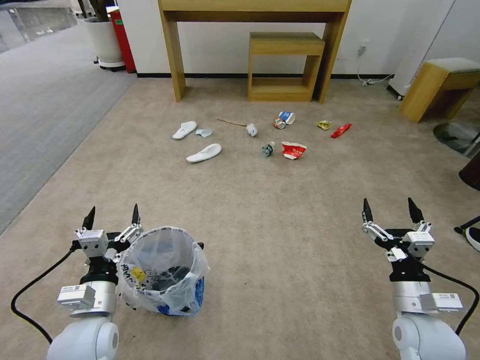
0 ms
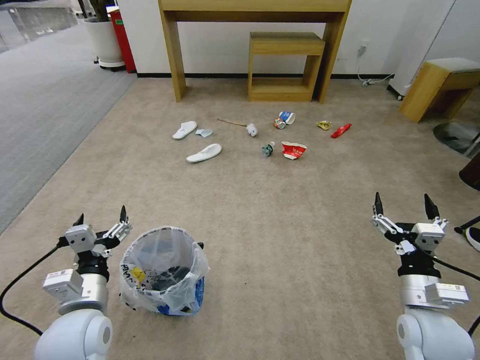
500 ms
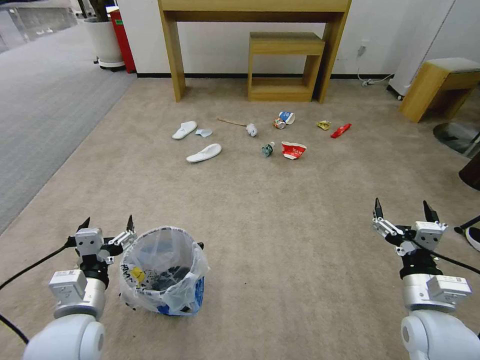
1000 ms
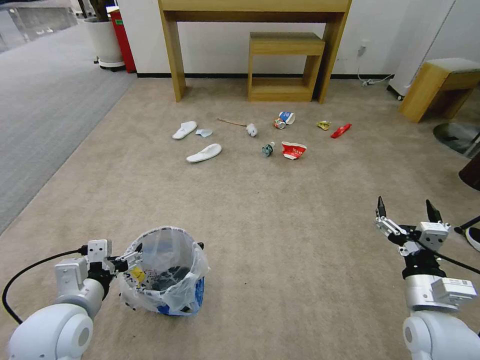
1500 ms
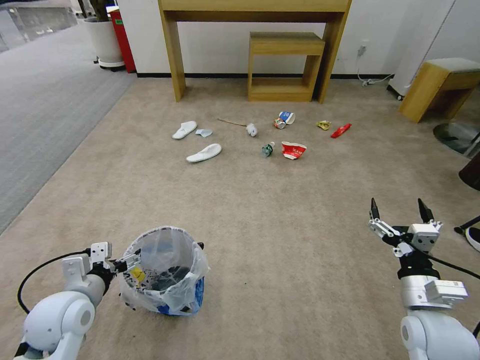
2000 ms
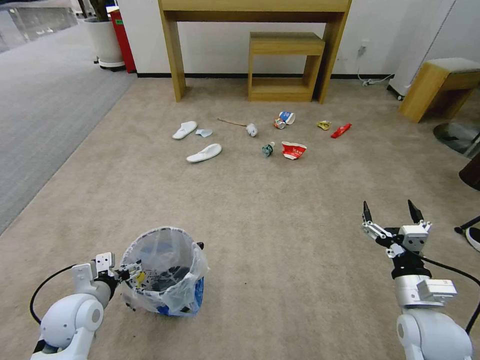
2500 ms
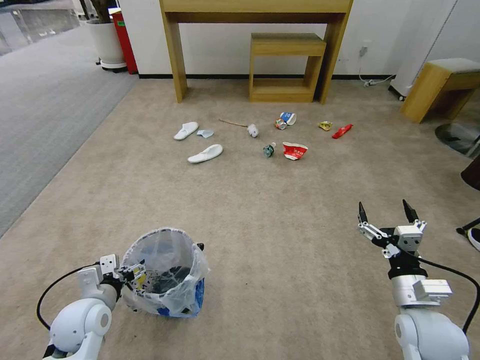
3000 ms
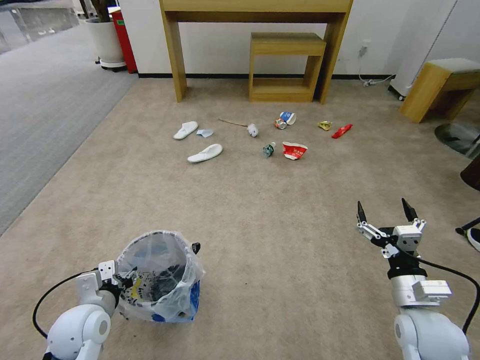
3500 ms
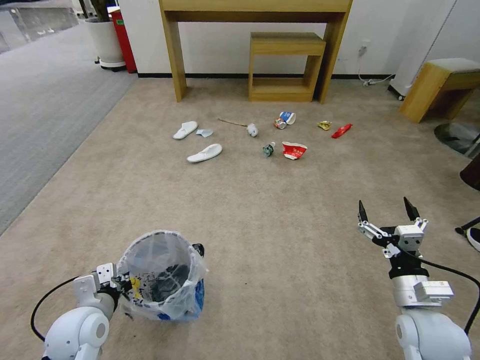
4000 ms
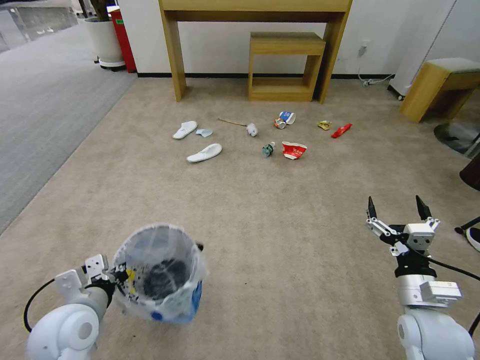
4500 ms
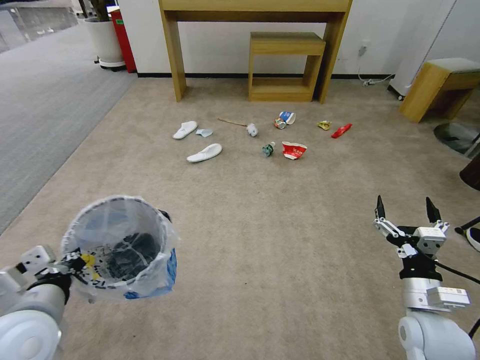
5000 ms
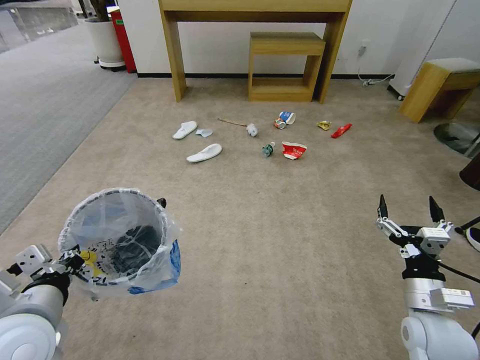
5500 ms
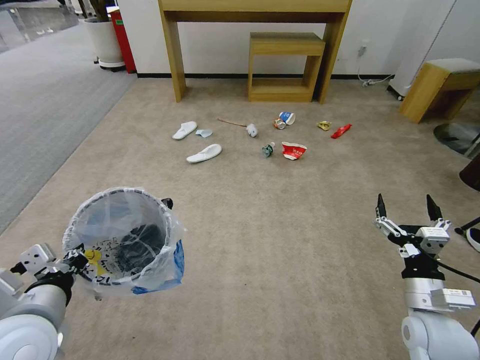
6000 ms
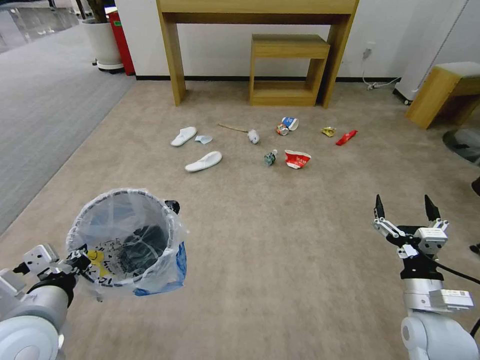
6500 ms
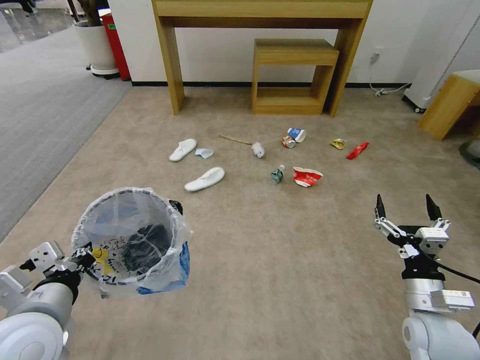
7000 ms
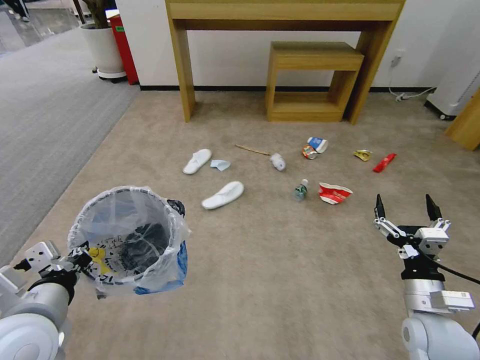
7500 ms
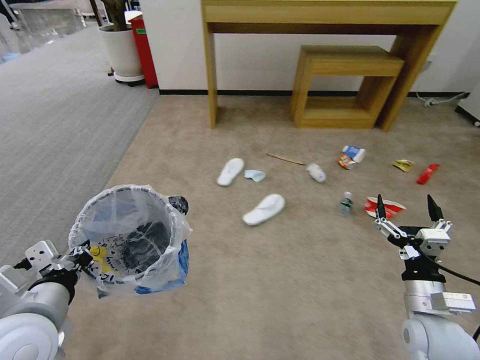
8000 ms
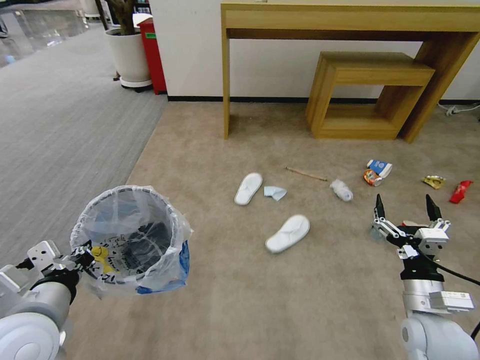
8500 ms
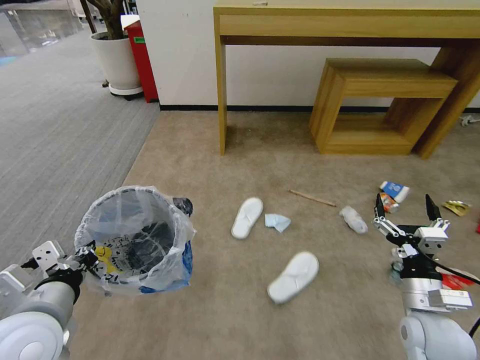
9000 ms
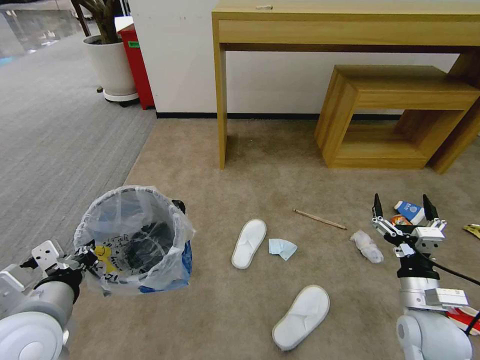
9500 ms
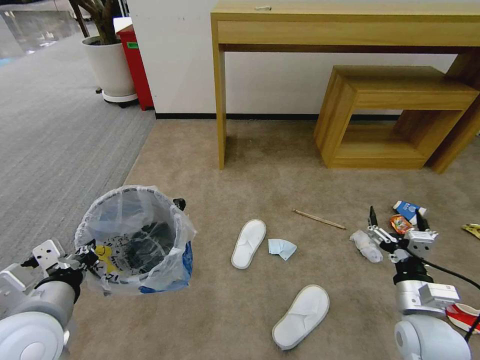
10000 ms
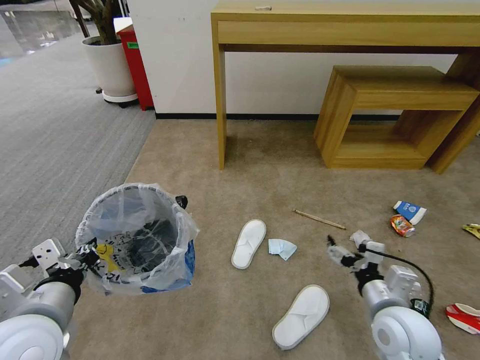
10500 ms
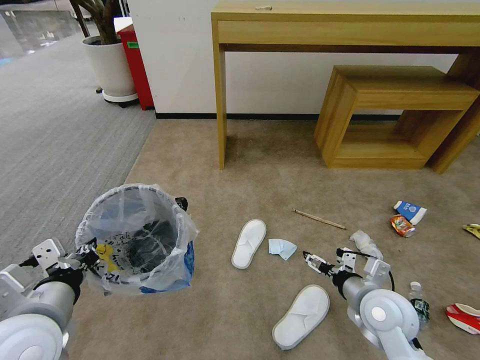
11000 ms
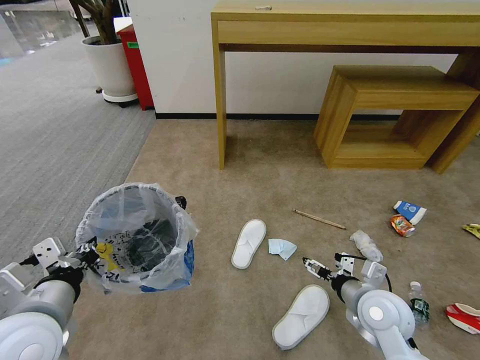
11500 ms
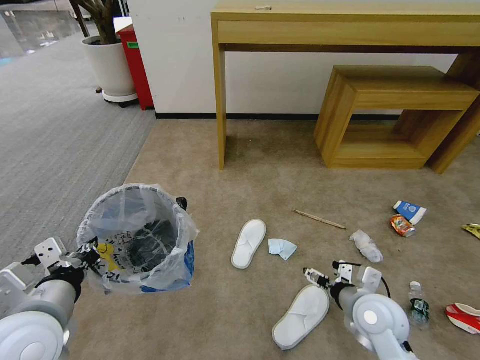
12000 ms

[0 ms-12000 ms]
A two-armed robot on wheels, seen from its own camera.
Task of the whole recording: Pick up the trash bin and place the garbage on the floor into it.
2000 ms to 4000 ms: The left gripper ends up roughly 5 cm from where it was, and closes.
4000 ms to 6000 ms: The left gripper heads upward, covering about 15 cm.
10000 ms to 12000 ms: The right gripper travels to the left by some 5 cm.

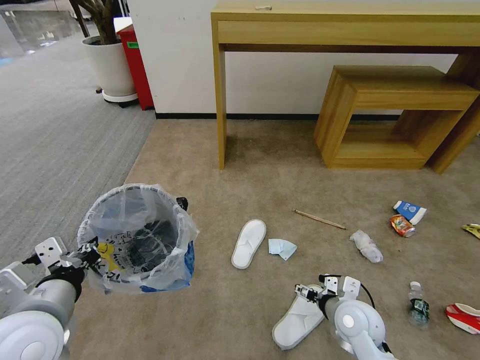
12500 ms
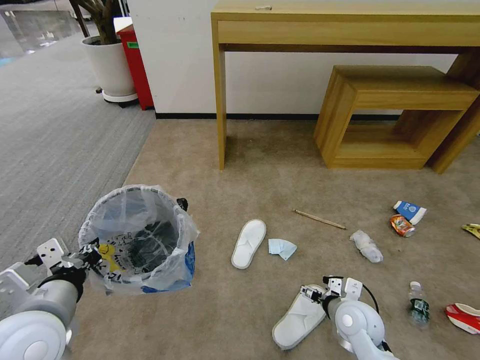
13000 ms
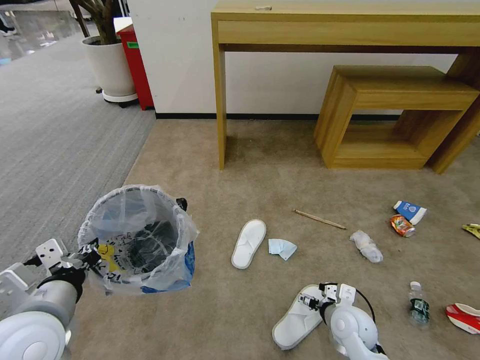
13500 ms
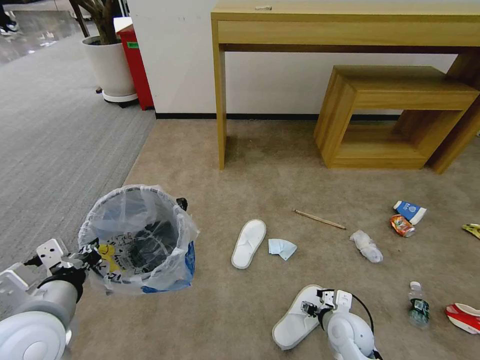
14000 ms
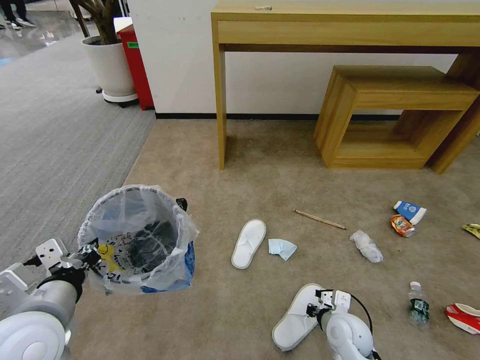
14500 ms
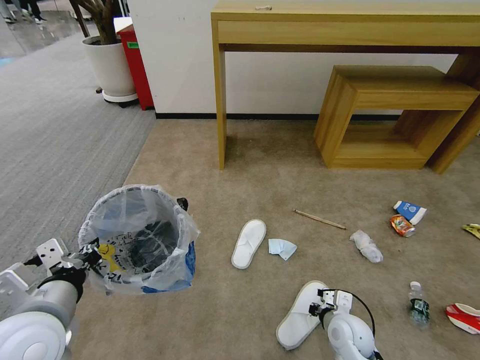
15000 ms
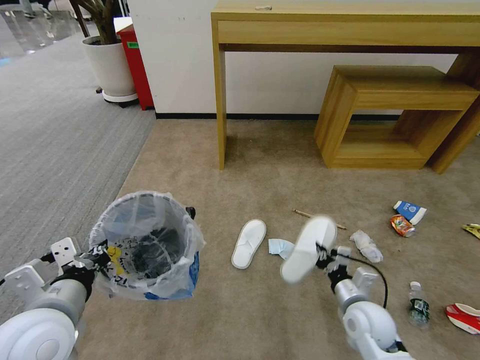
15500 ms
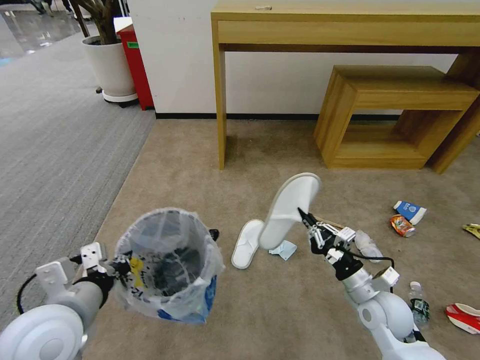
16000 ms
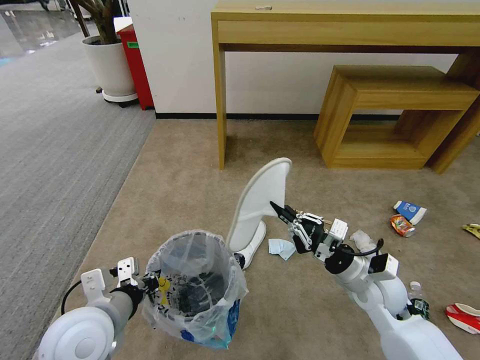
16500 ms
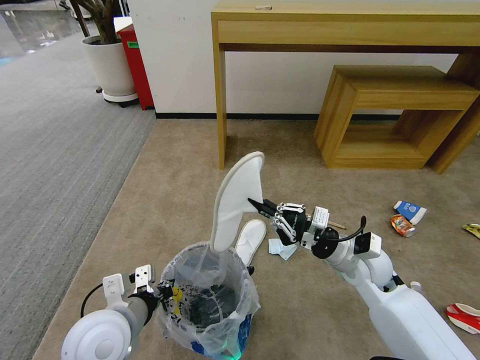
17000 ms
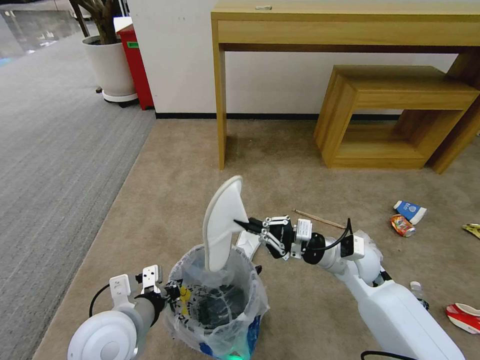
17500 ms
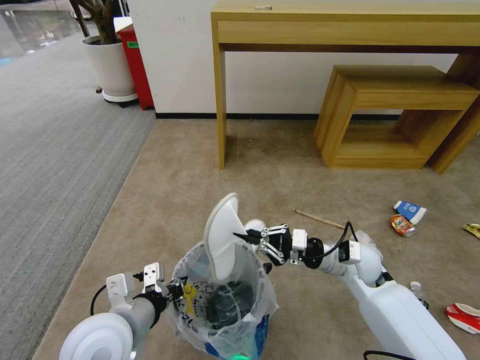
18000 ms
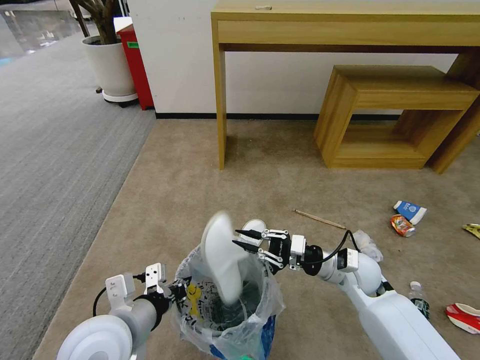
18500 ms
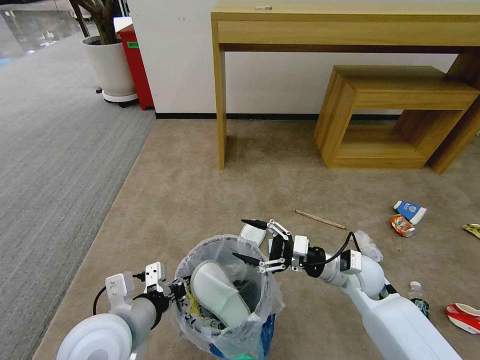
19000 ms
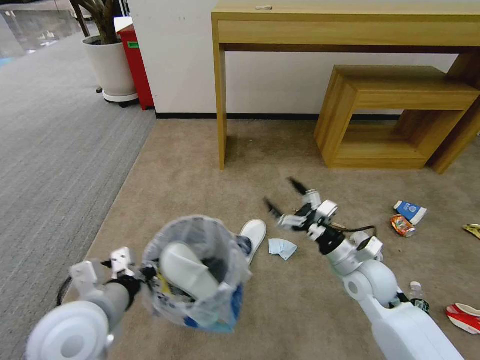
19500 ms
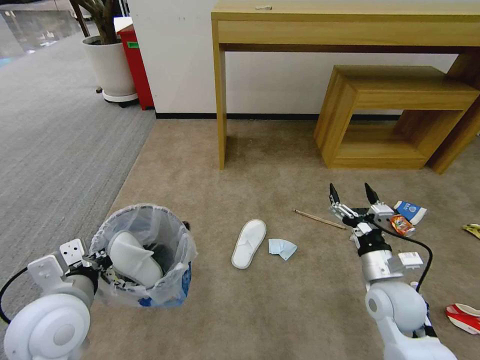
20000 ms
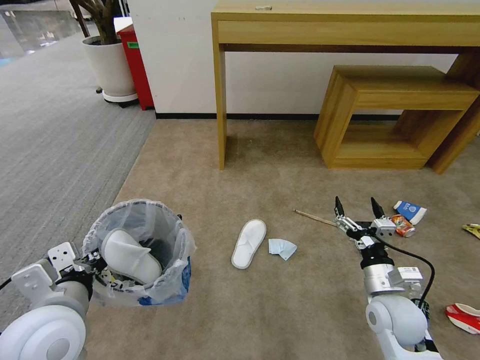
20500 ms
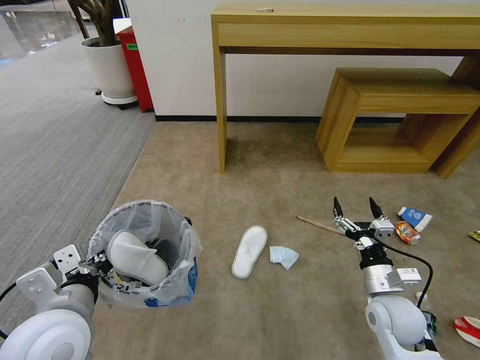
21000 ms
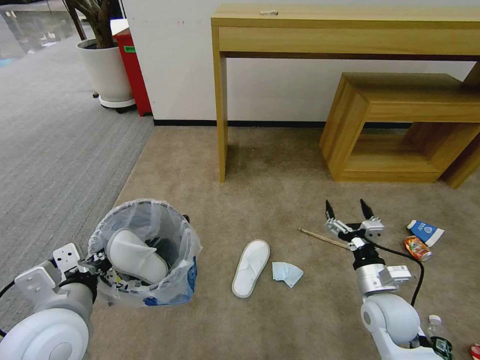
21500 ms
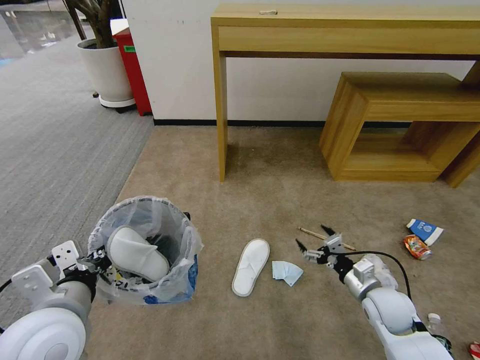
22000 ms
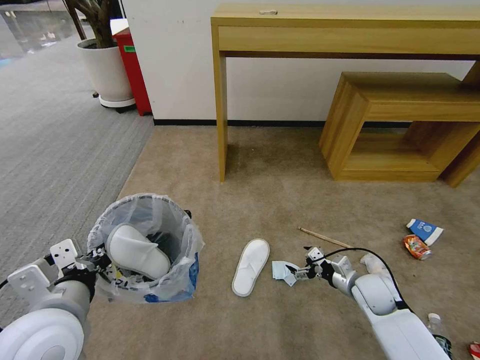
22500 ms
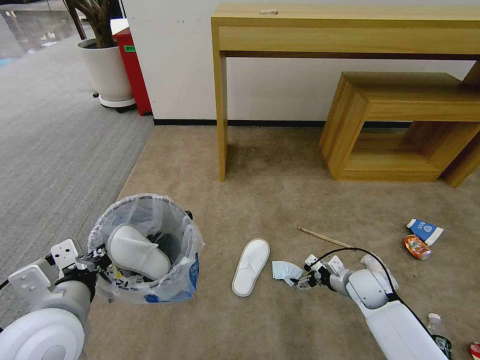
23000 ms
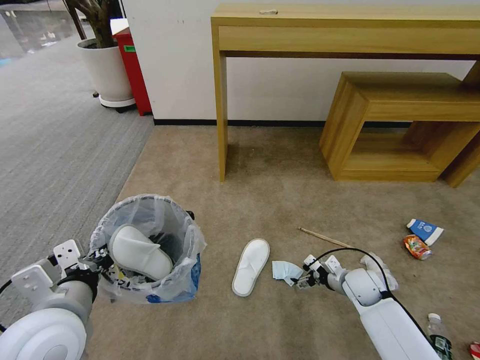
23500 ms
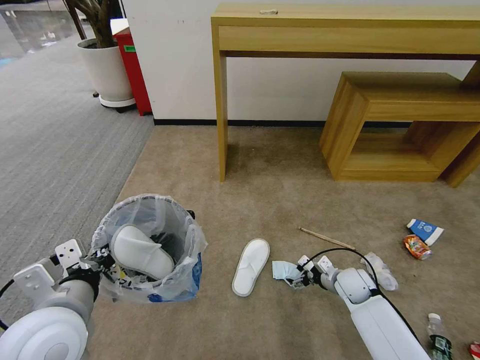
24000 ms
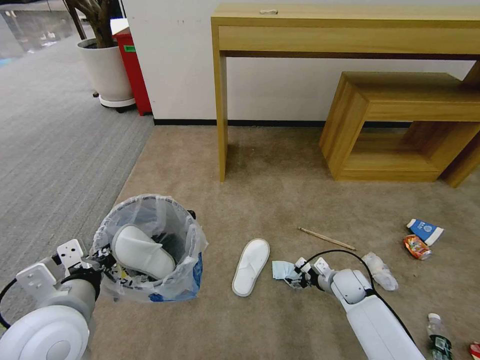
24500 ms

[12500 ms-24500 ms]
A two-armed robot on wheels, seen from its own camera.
Task of the whole recording: Pick up the trash bin and place the garbage on the floor into it.
12500 ms to 14500 ms: The right gripper shifts roughly 5 cm downward, and closes.
14500 ms to 16500 ms: The right gripper shifts some 15 cm upward; the left gripper ends up roughly 5 cm from where it was.
16500 ms to 18500 ms: The right gripper travels forward by roughly 5 cm.
18500 ms to 20500 ms: The right gripper heads backward, covering about 10 cm, and opens its fingers. The left gripper goes some 5 cm to the left.
20500 ms to 22500 ms: The right gripper travels downward and forward by about 10 cm.
22500 ms to 24500 ms: The right gripper moves downward, roughly 5 cm.

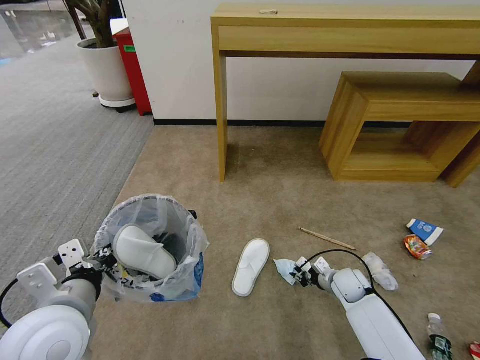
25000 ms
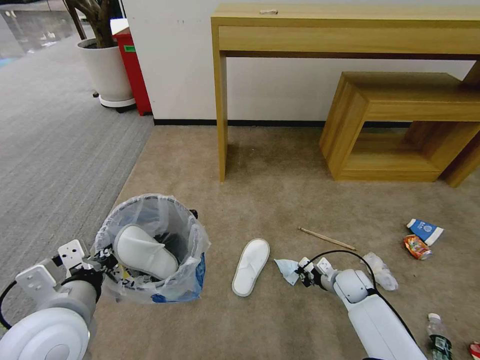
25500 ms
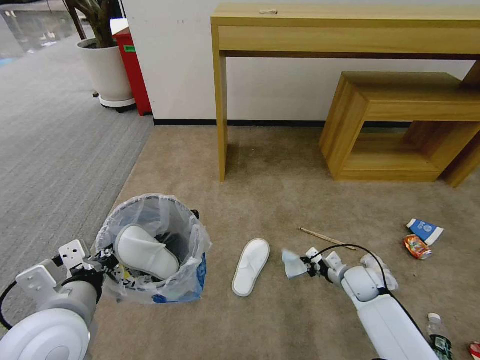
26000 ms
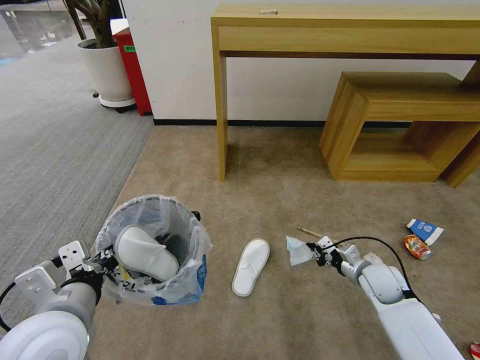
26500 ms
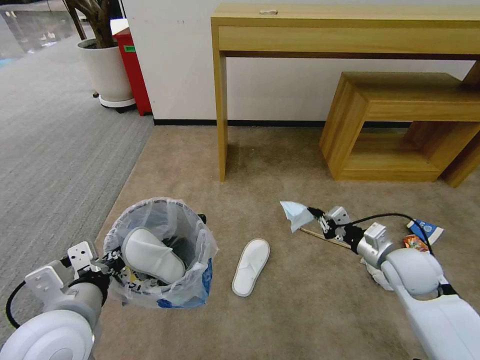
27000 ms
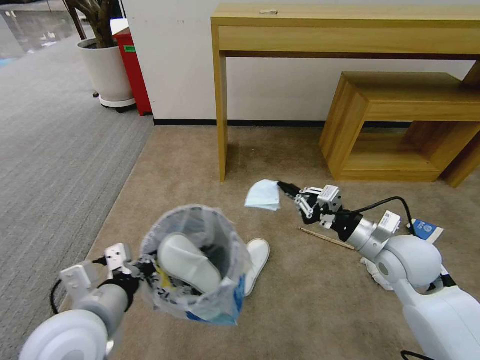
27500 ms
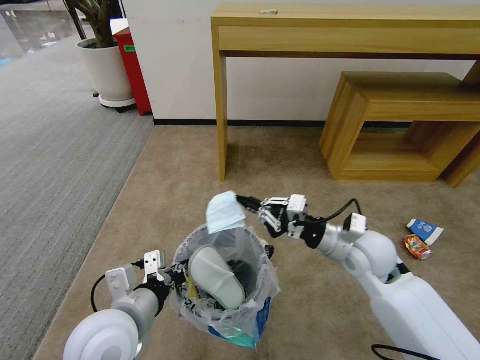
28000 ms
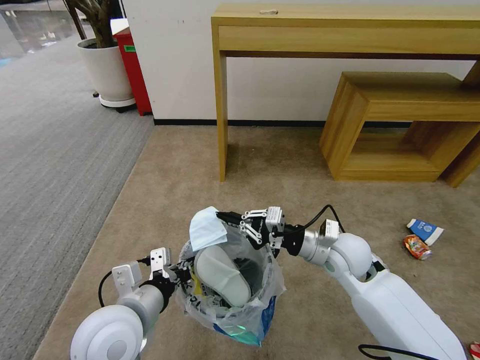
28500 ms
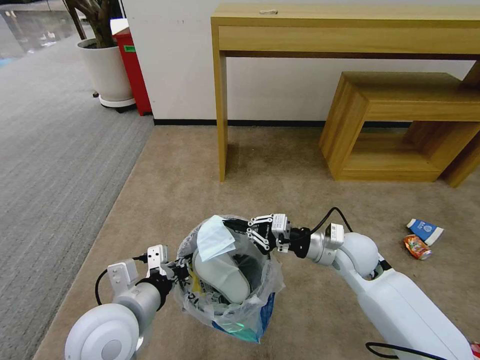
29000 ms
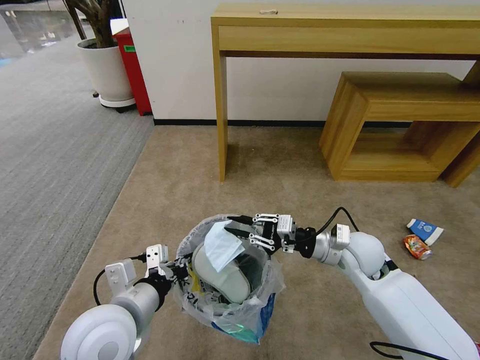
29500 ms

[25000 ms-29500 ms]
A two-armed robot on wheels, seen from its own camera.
Task of the whole recording: Pick up the trash bin and place the garbage on the floor into it.
25000 ms to 27000 ms: The right gripper shifts about 20 cm upward.
27000 ms to 29500 ms: The left gripper shifts by roughly 5 cm, while the right gripper heads to the left, covering some 10 cm.
